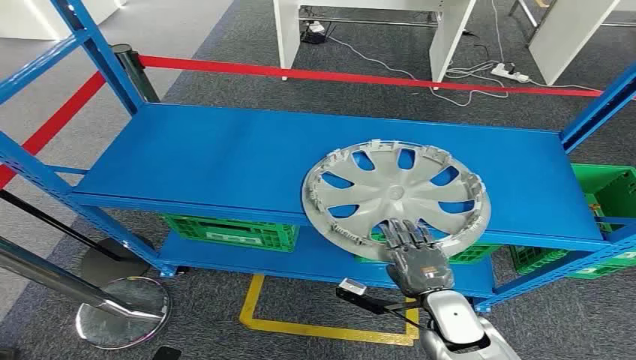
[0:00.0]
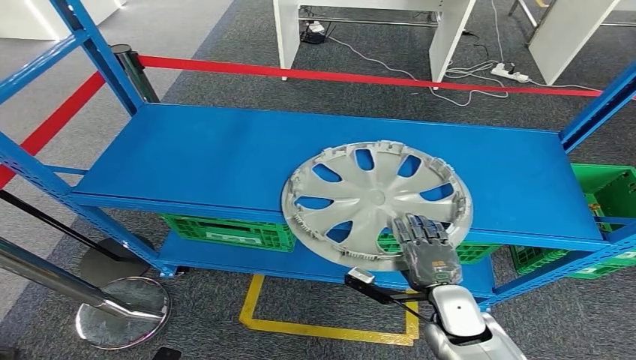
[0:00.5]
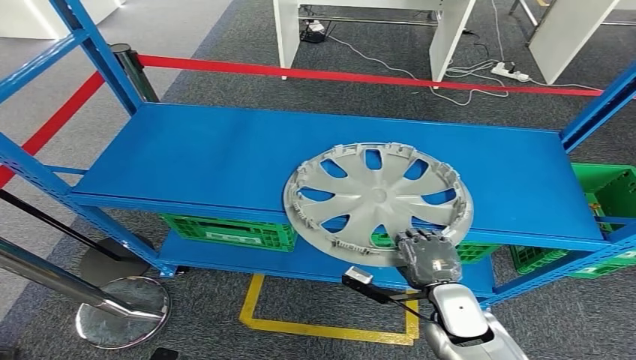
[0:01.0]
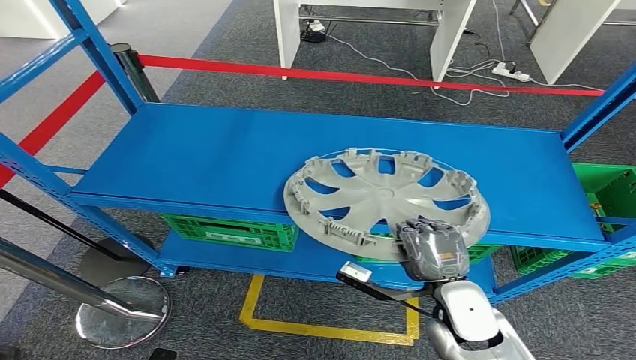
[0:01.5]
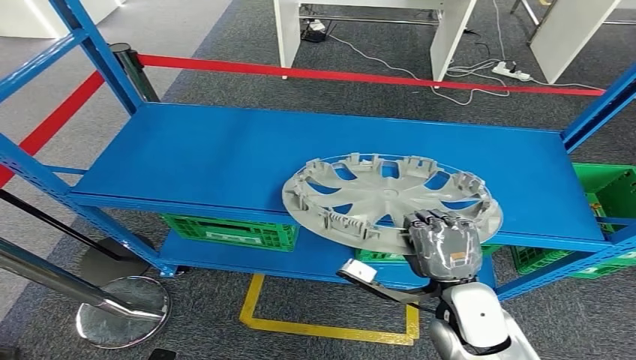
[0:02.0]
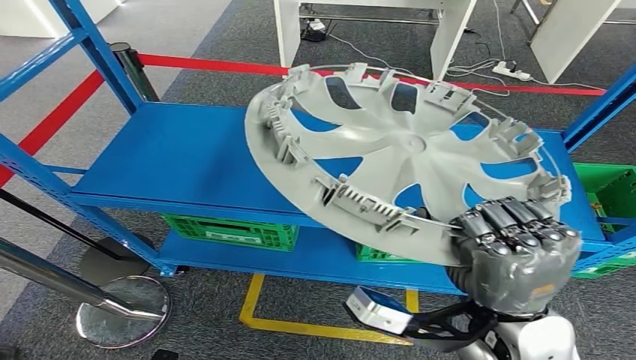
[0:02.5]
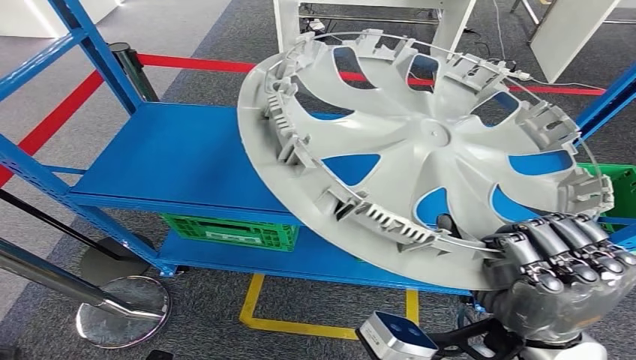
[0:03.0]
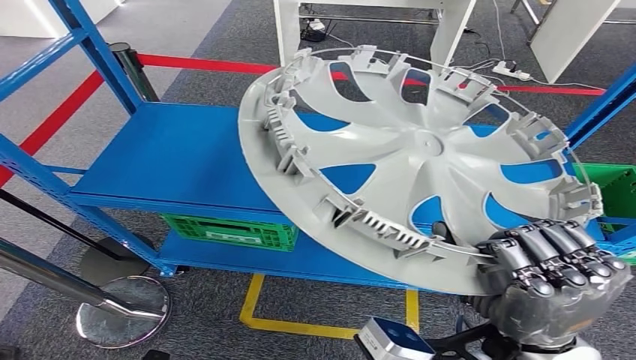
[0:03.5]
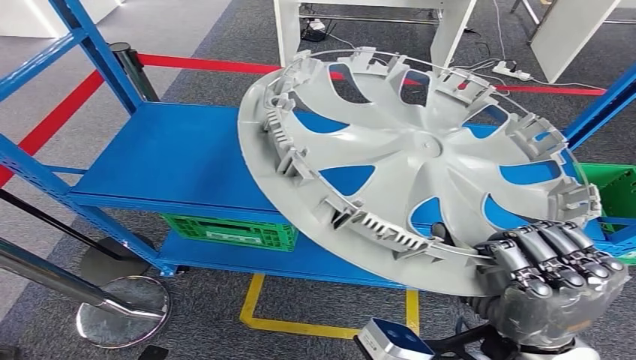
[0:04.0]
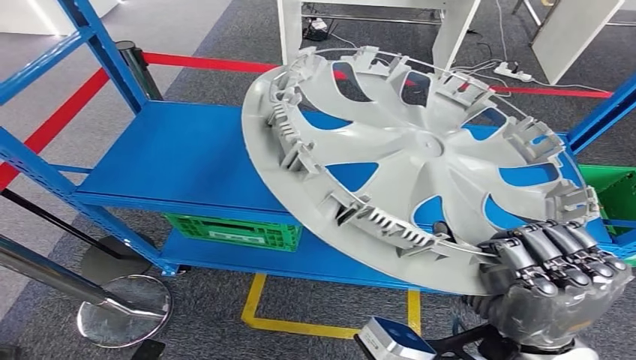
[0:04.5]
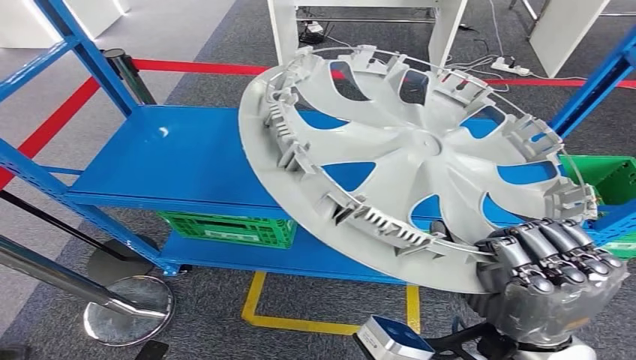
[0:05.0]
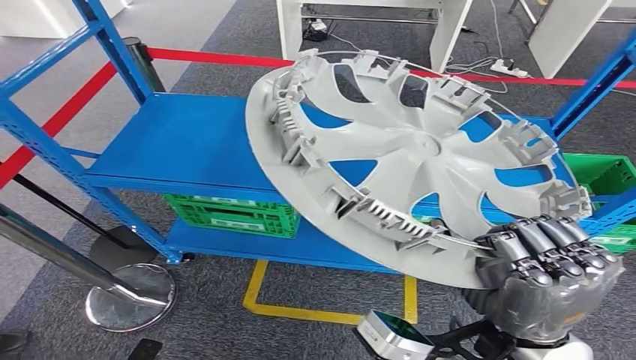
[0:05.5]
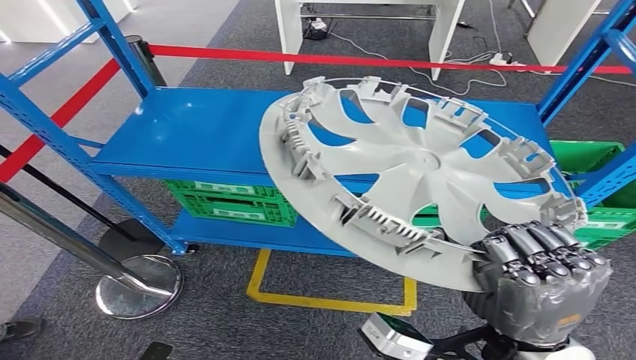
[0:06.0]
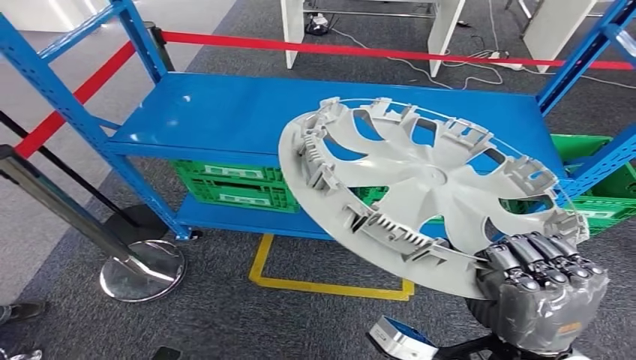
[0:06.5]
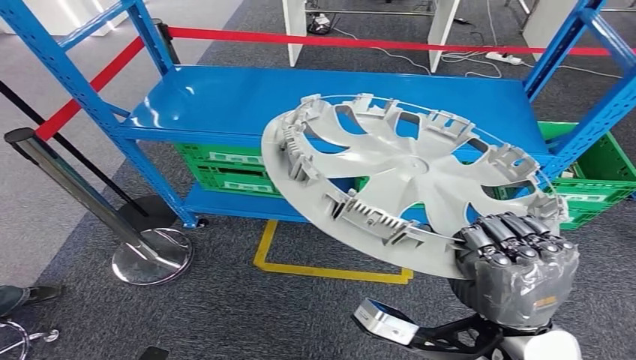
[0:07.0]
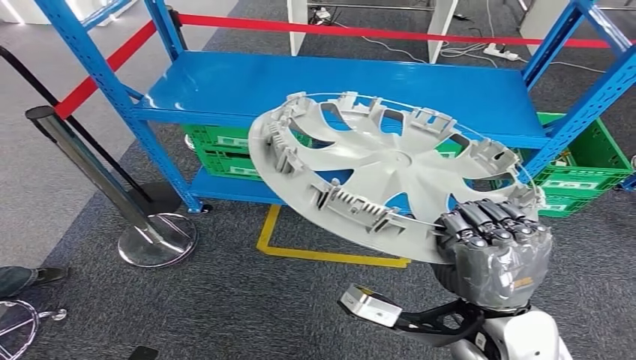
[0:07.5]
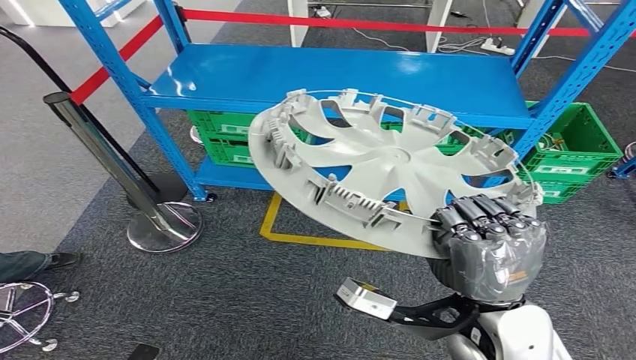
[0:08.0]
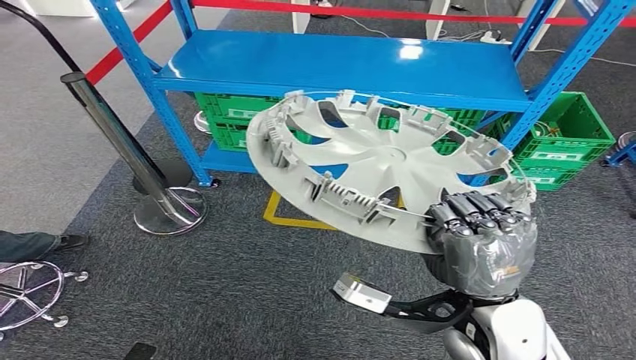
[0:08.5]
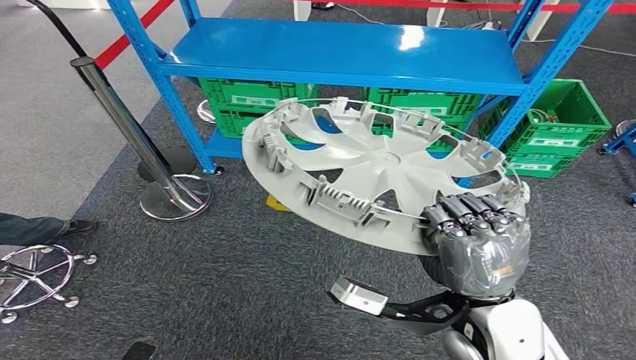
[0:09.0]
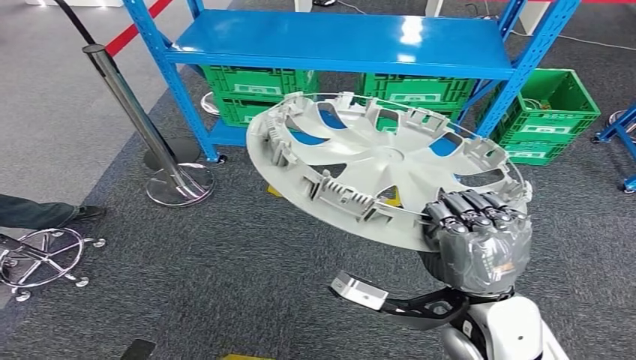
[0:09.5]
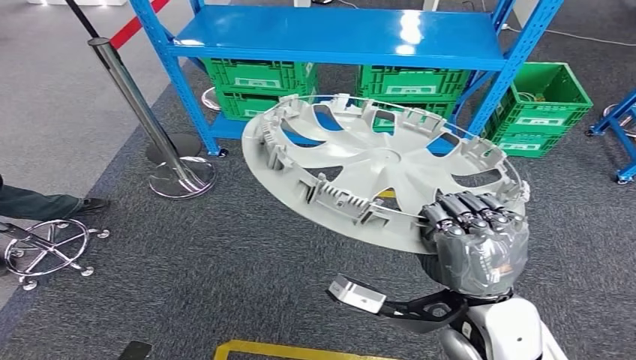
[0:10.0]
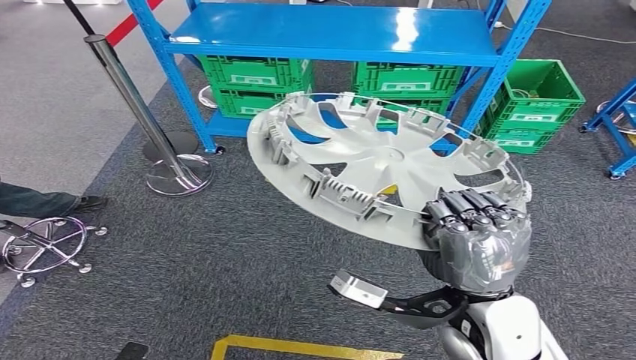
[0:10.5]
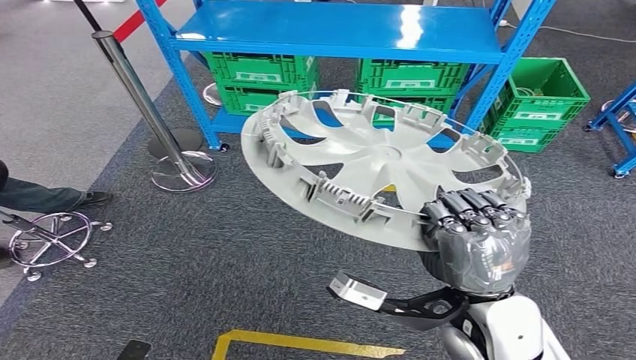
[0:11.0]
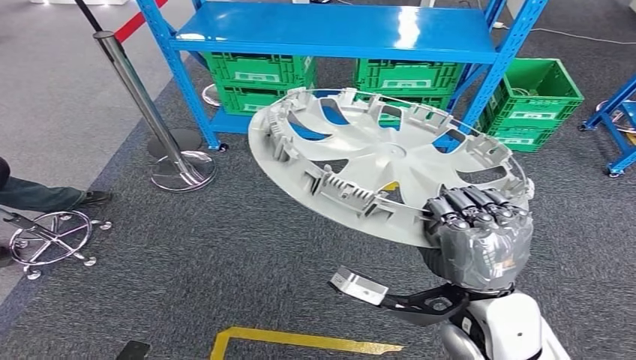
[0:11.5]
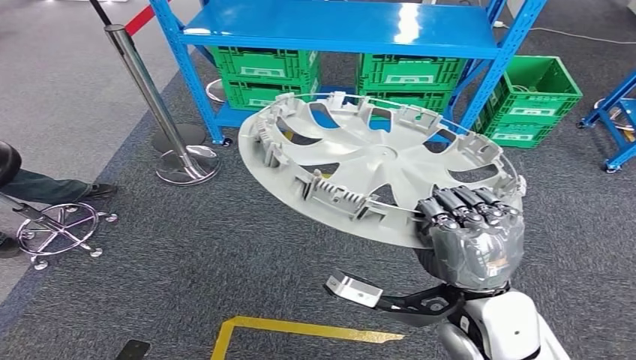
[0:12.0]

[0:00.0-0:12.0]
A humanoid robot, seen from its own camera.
Step, 0:00.0 to 0:05.0: Take small components from the rack.

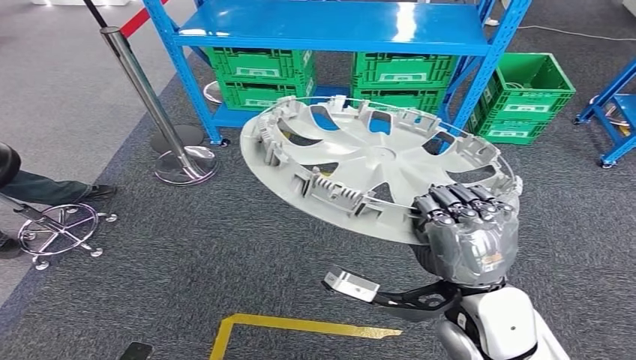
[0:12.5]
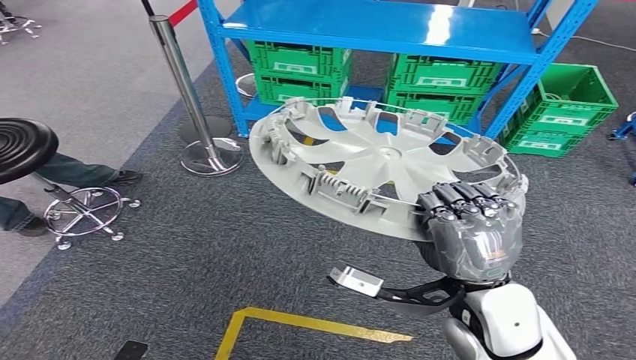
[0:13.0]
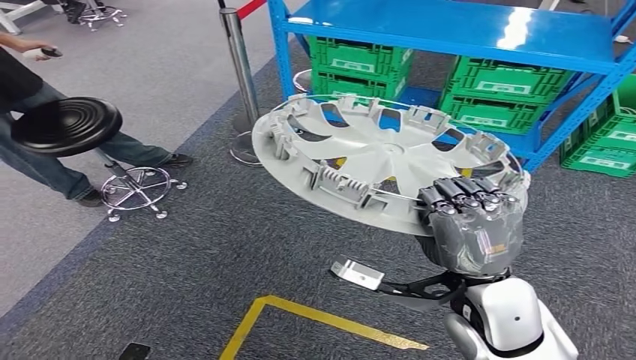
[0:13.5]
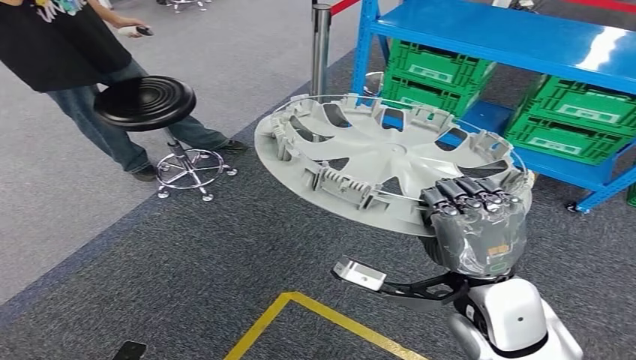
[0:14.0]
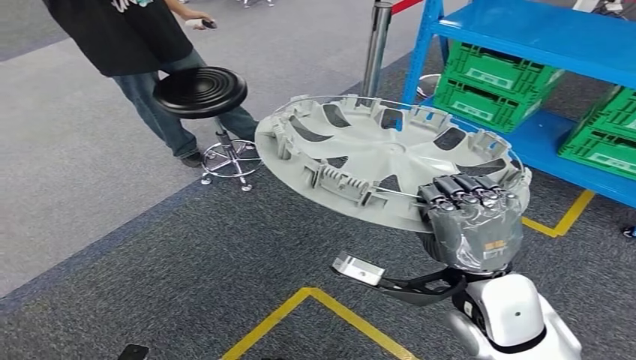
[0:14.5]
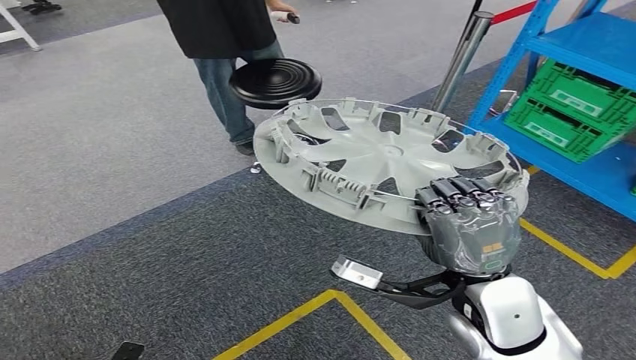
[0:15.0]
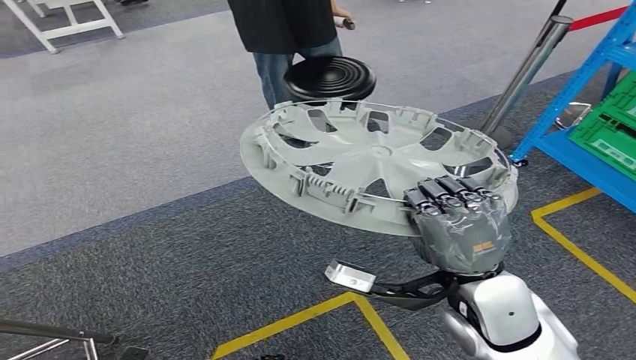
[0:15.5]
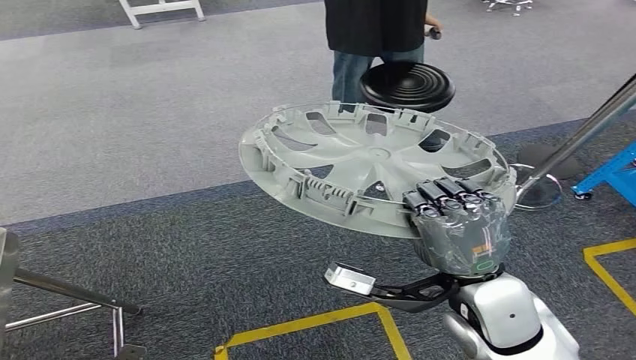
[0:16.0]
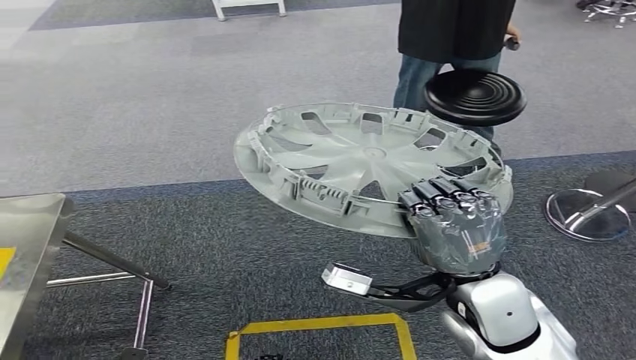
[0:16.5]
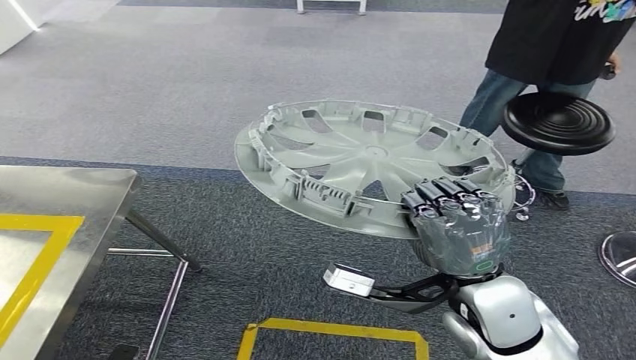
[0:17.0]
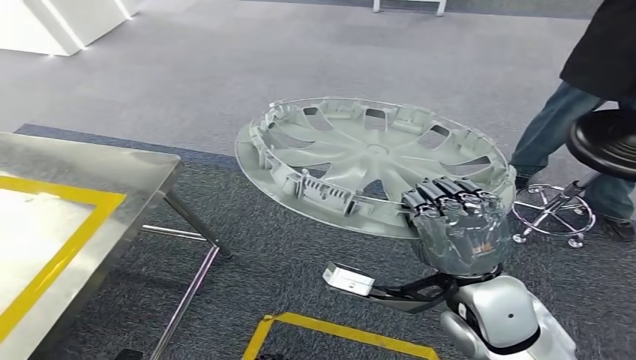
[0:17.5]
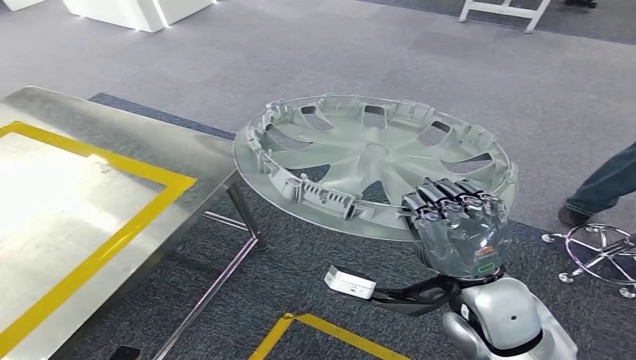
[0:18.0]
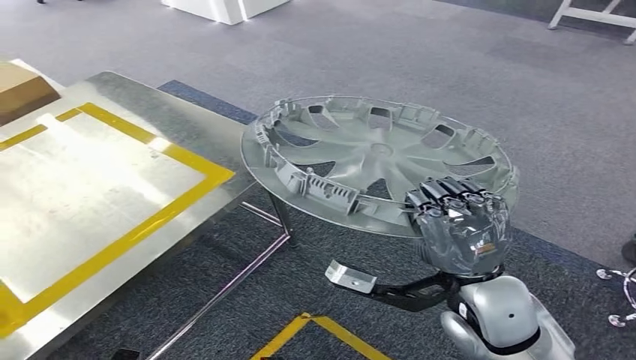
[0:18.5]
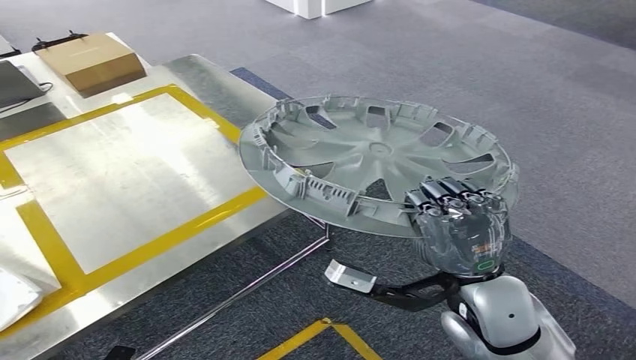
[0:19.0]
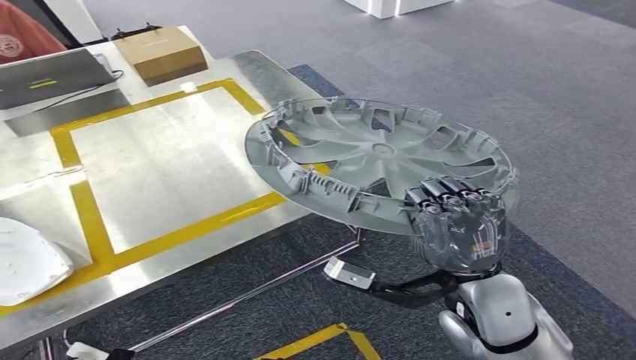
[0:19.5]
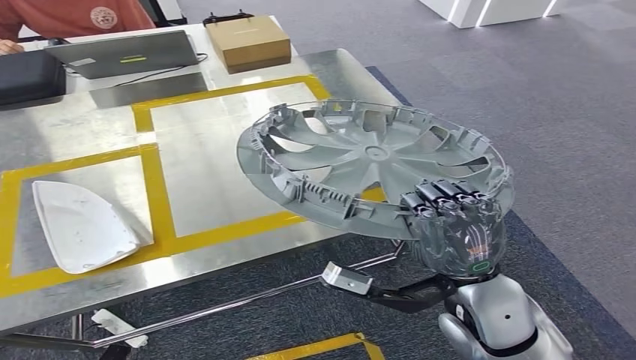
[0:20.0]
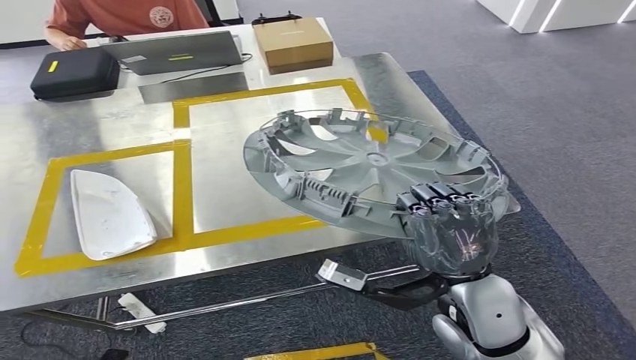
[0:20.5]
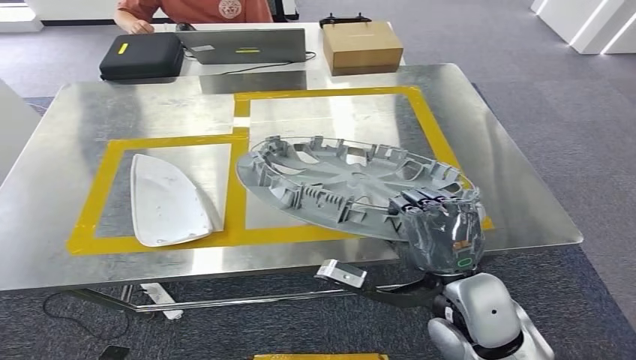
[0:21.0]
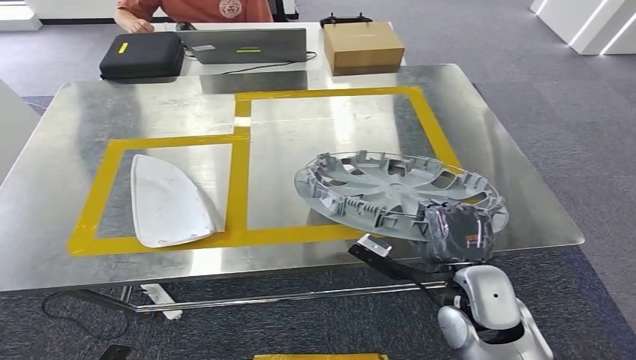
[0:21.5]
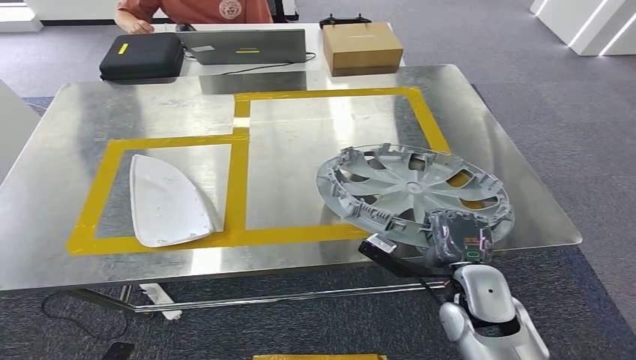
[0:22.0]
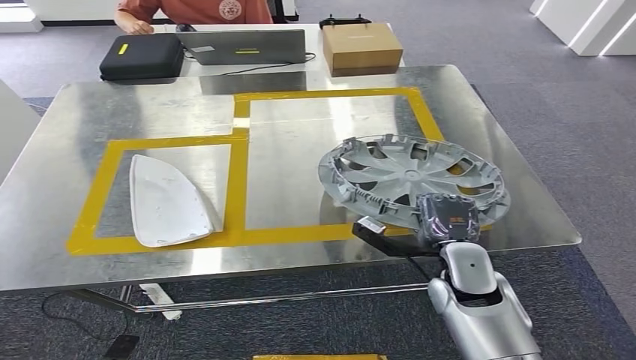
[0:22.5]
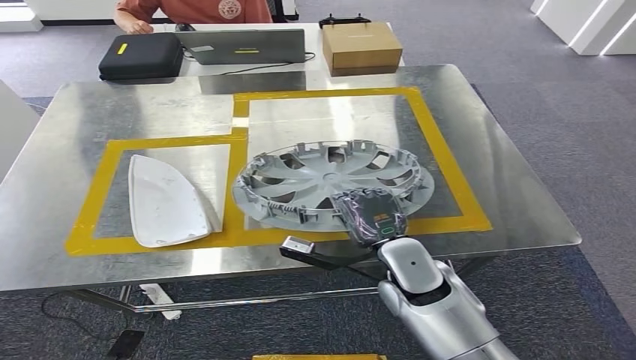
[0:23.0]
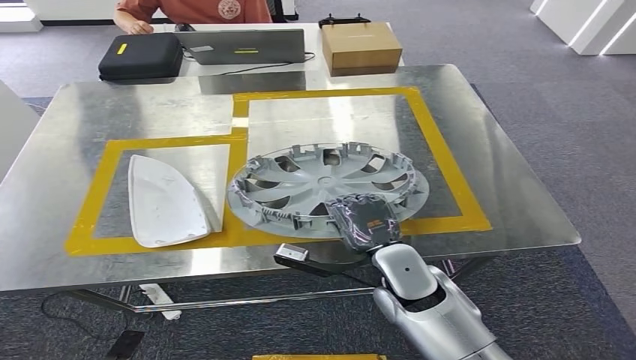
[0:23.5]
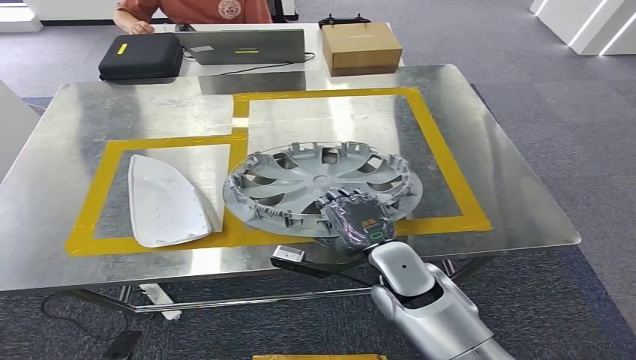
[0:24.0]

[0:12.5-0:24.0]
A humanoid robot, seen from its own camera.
Step, 0:12.5 to 0:19.5: Move the small parts to the workbench.
0:22.0 to 0:24.0: The right hand heads to the left, covering about 10 cm.
